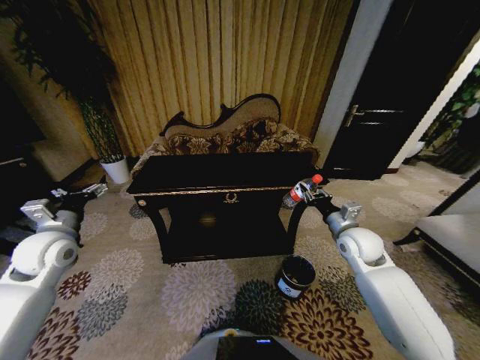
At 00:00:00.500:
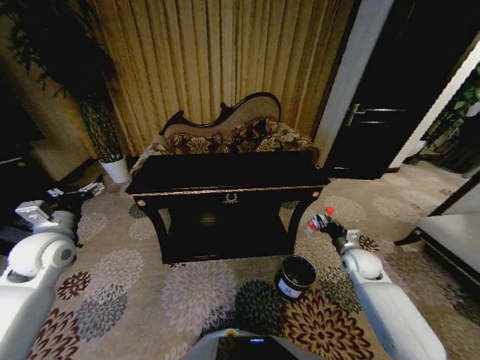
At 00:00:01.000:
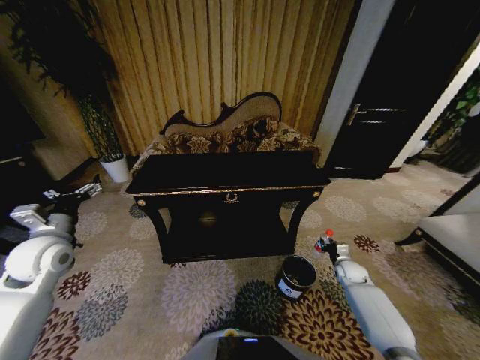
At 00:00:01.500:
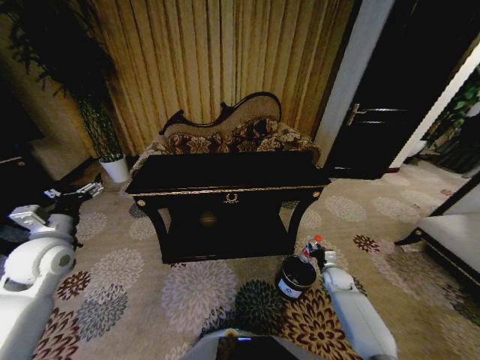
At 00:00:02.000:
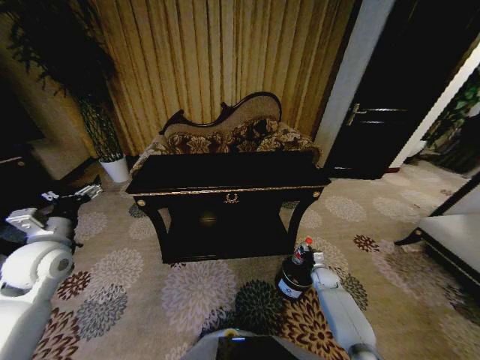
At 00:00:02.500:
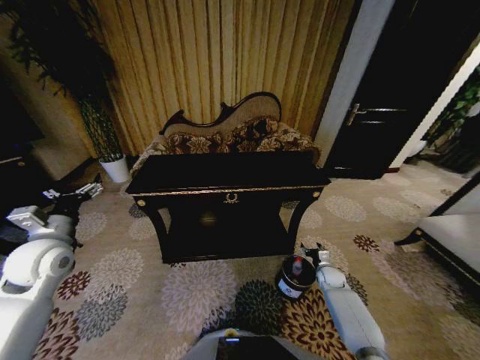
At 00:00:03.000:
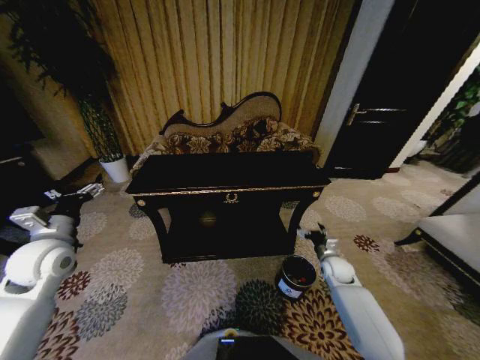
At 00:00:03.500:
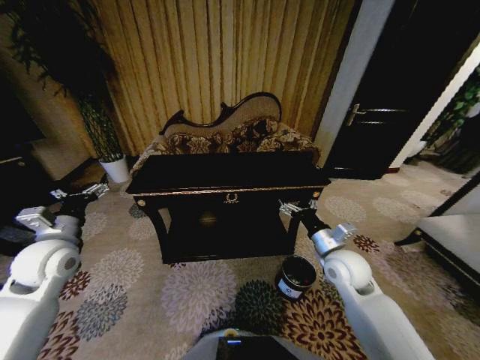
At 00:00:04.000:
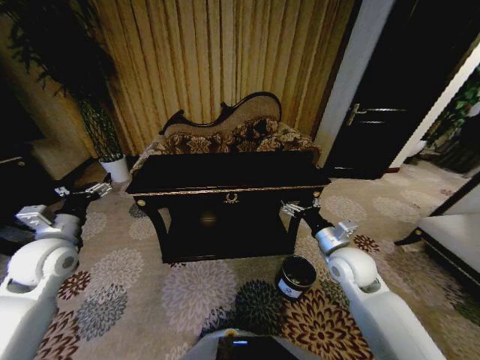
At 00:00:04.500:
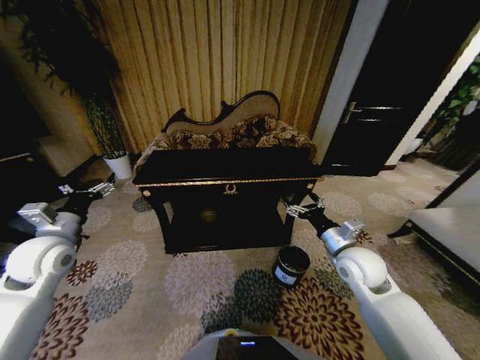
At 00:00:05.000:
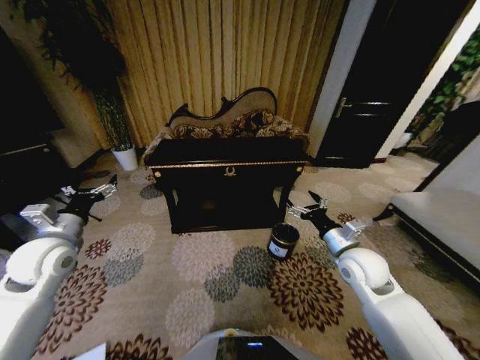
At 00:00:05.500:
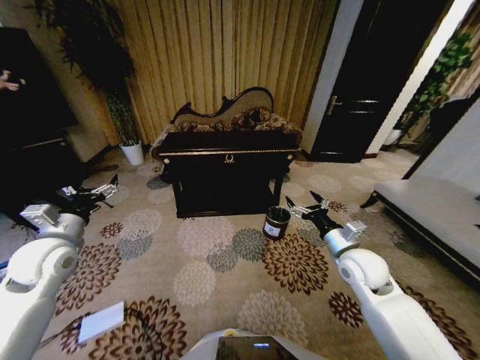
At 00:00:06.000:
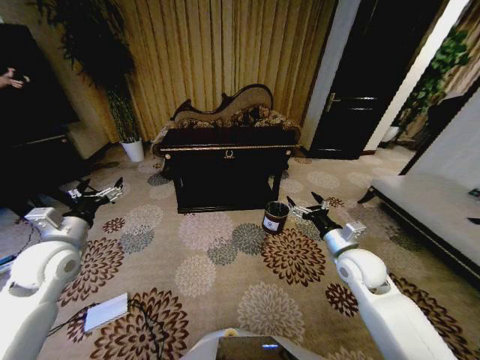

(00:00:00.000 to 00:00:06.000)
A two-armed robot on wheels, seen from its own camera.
Task of the whole recording: Move to the front of the table and place the trash on the table into the trash bin.
00:00:00.000 - 00:00:02.000: The right gripper goes roughly 30 cm downward.
00:00:02.000 - 00:00:04.000: The right gripper goes some 30 cm upward, and opens.
